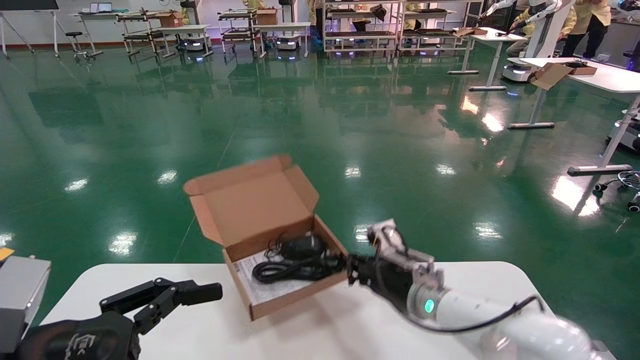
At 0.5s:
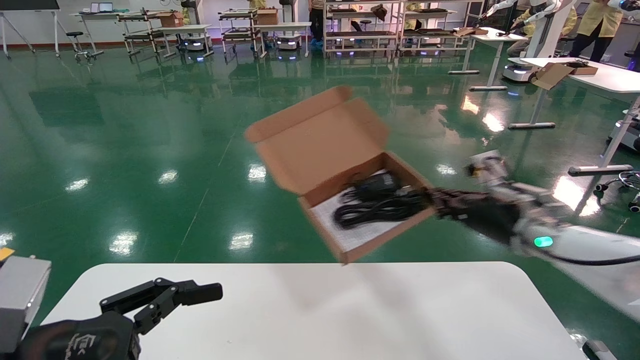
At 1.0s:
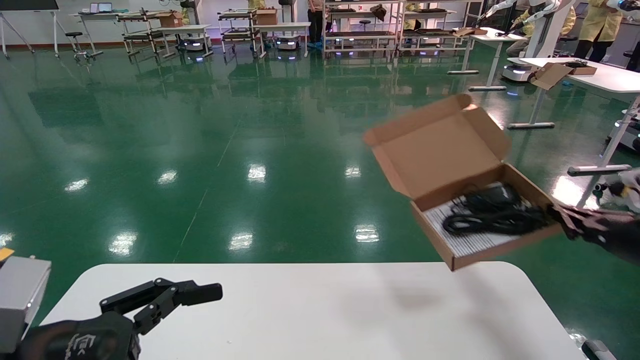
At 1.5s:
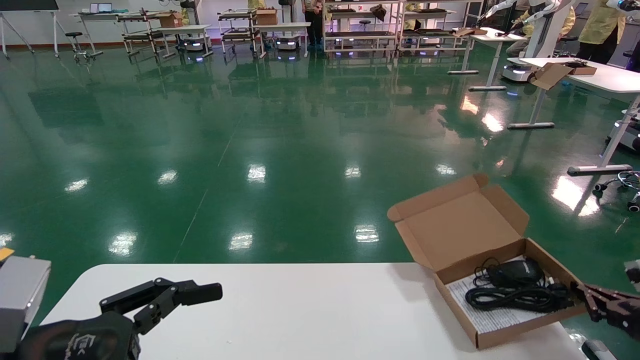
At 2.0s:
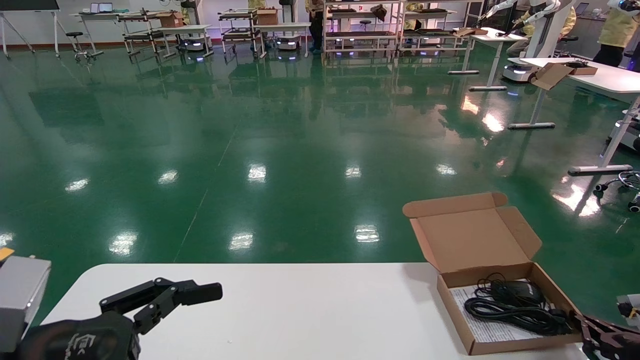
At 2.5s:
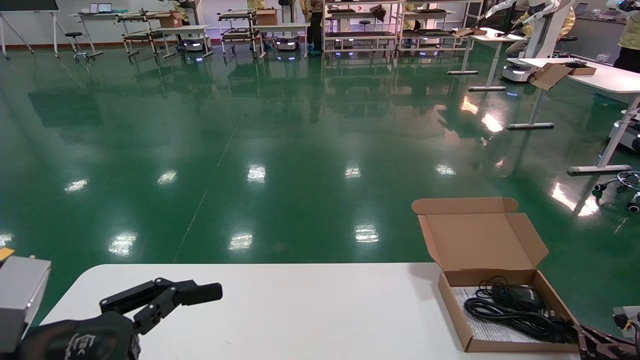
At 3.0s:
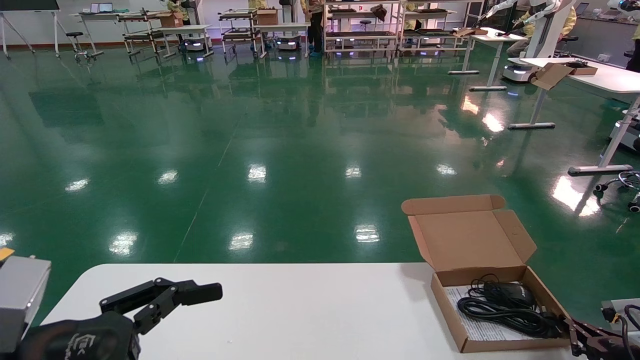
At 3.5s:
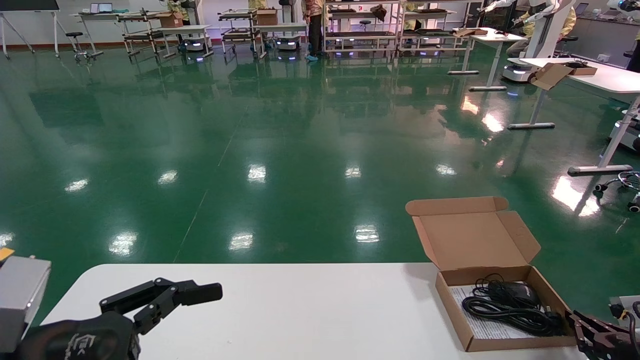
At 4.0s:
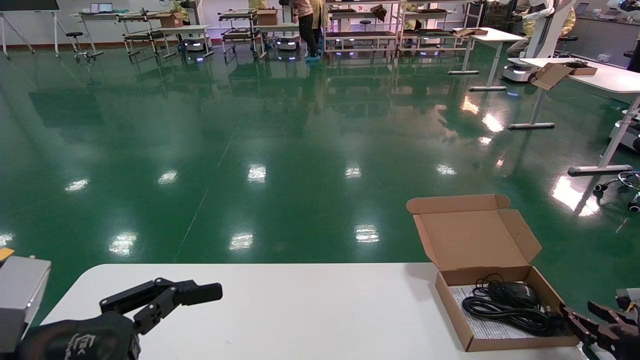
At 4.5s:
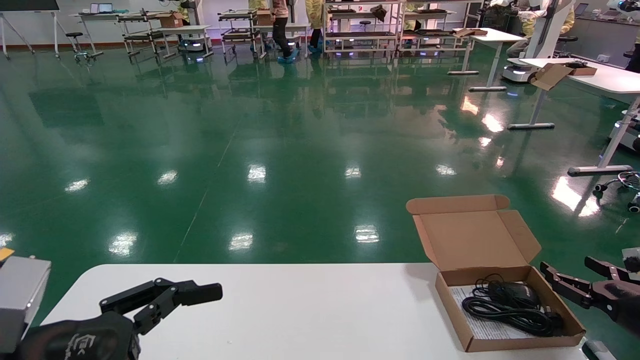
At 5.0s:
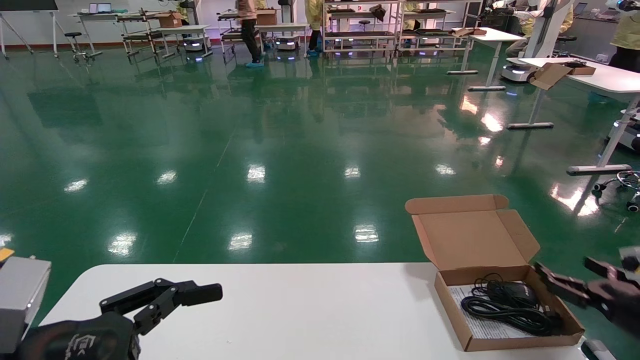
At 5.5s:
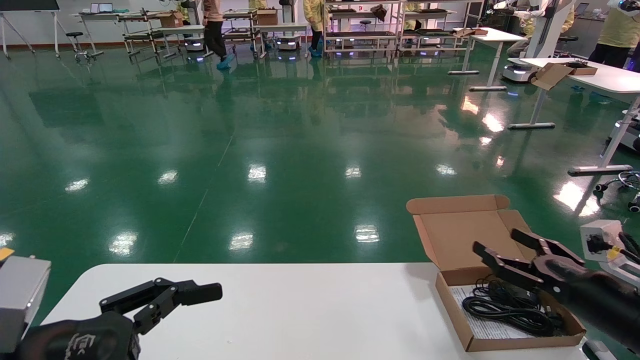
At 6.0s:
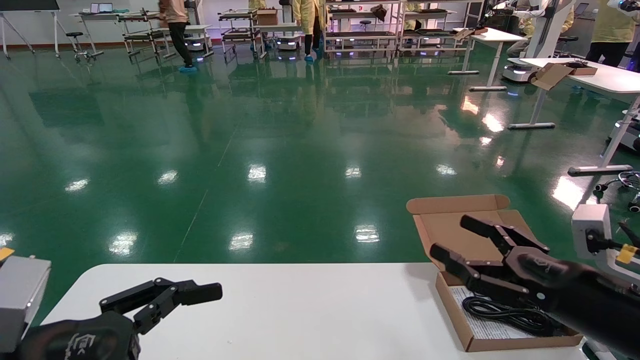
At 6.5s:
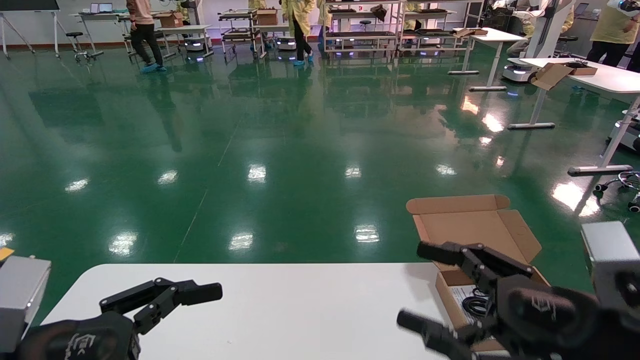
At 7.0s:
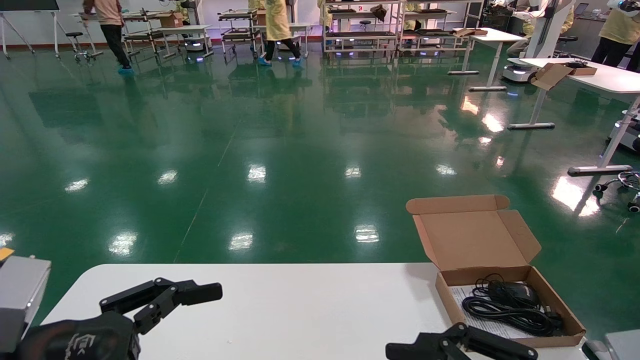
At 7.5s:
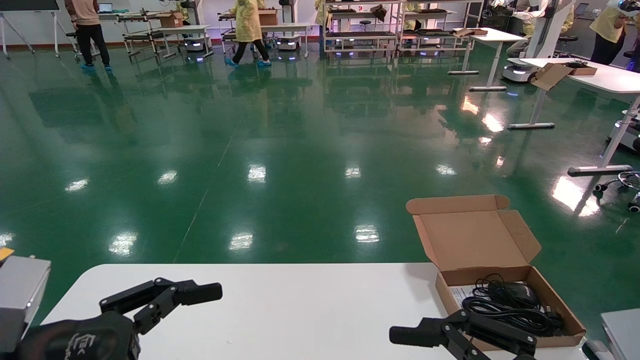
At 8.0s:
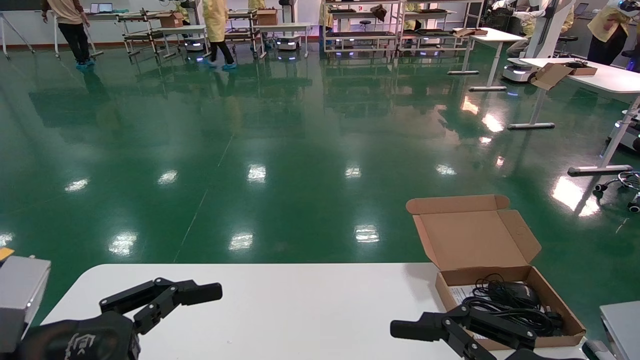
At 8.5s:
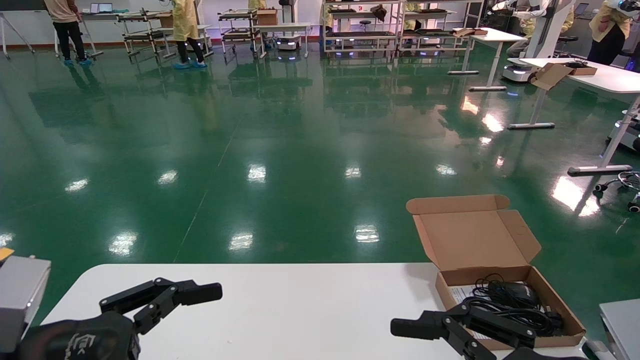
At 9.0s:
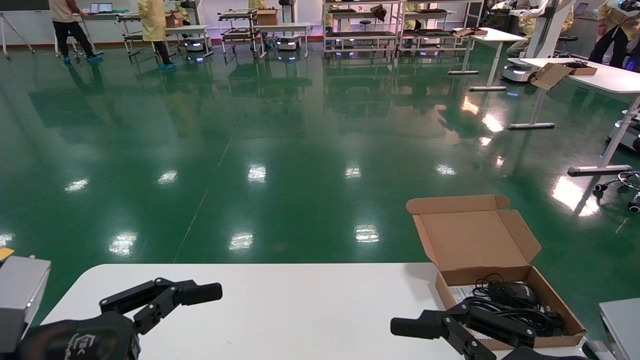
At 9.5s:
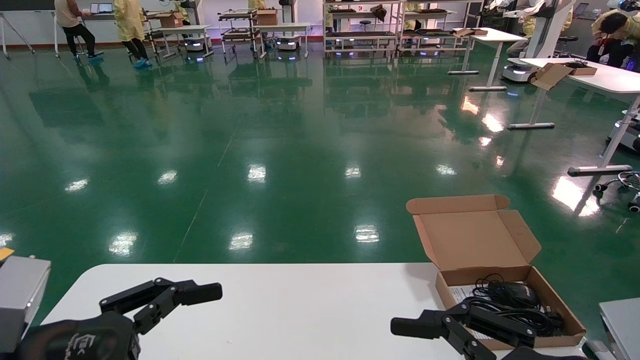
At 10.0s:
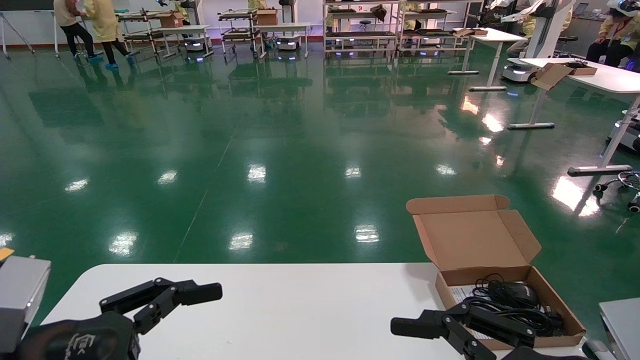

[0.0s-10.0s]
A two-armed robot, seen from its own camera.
Task of the whole recording: move the position of the storage box with accessories on the table.
Step, 0.0s to 4.0s: Place the open mouse box onto the operation table.
0.0s to 2.0s: The right gripper goes some 35 cm to the right.
2.0s to 4.0s: The grippers make only small movements.
4.0s to 6.0s: The right gripper travels to the left, upward and backward by about 25 cm, and opens its fingers.
6.0s to 8.0s: The right gripper heads backward and to the left, covering roughly 15 cm.
8.0s to 10.0s: The two grippers keep their place.
